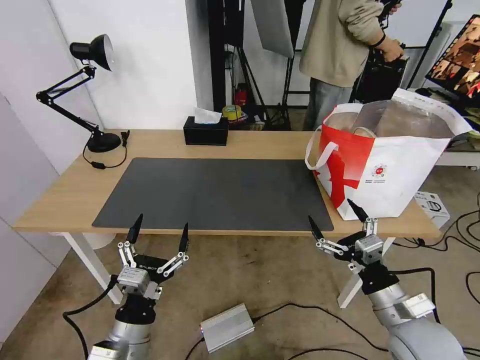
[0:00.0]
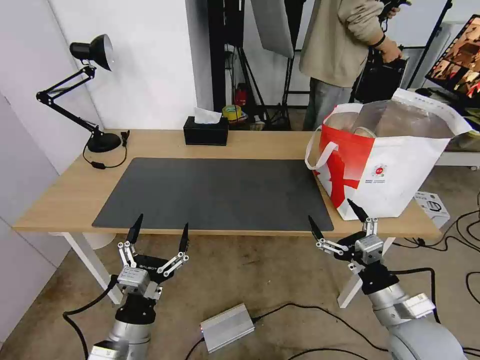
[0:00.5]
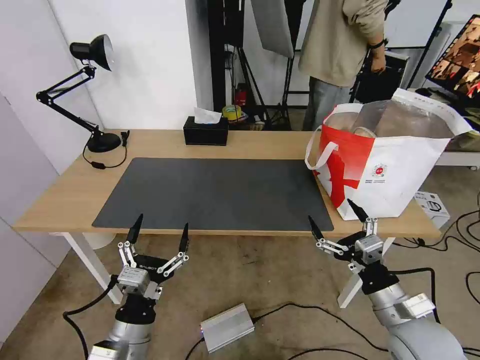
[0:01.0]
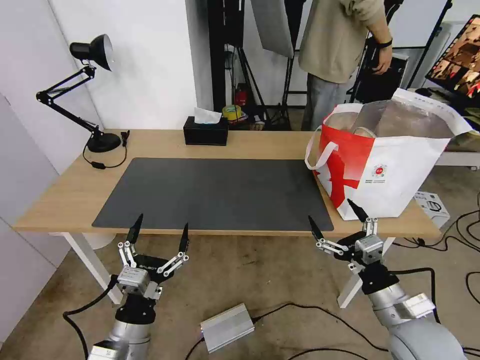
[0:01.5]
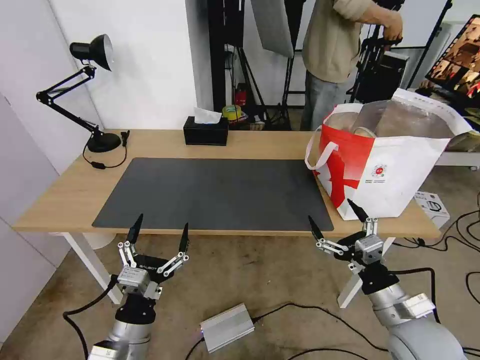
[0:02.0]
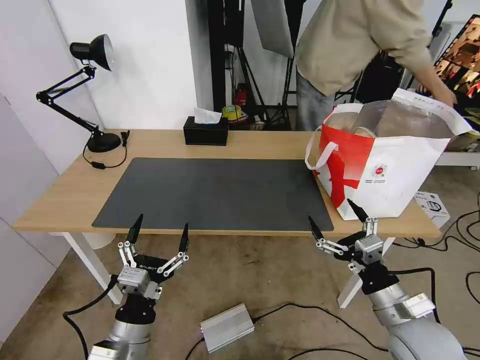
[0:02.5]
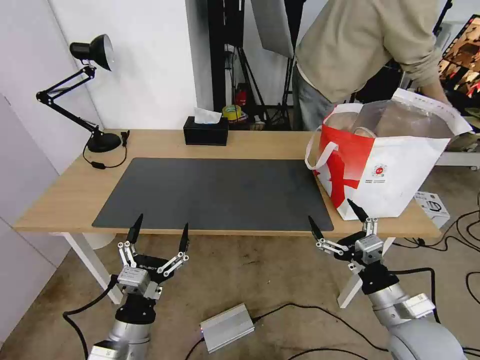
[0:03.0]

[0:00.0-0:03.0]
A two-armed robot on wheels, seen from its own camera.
Task of the whole recording: Pick up the trash from the table and place it into the takeout bag.
0:00.0 to 0:03.0: The two grippers keep their place.

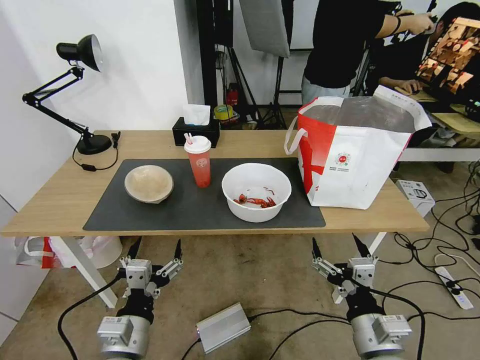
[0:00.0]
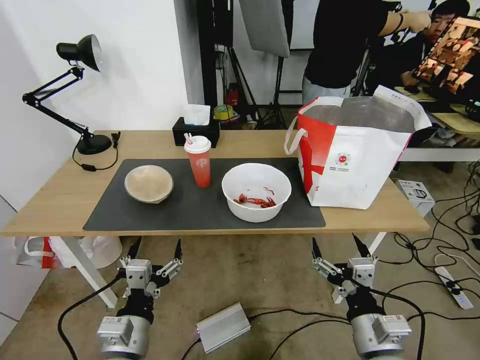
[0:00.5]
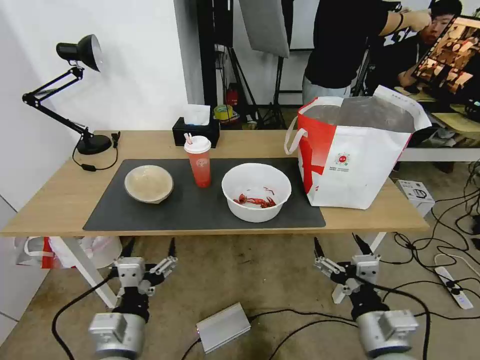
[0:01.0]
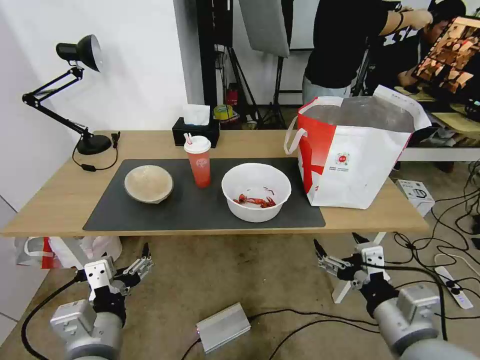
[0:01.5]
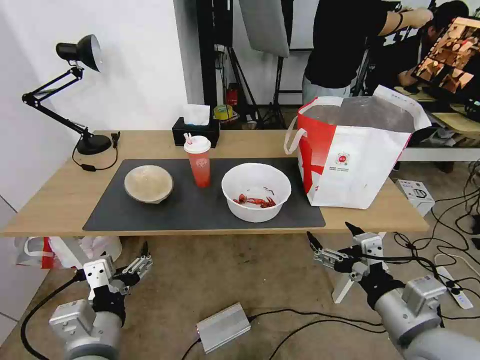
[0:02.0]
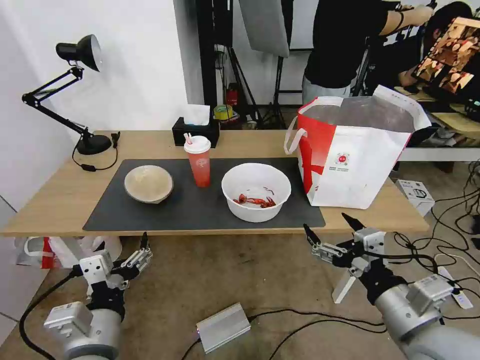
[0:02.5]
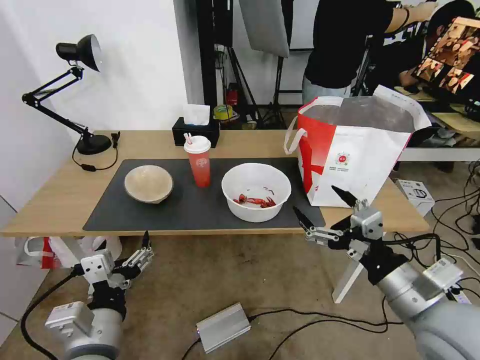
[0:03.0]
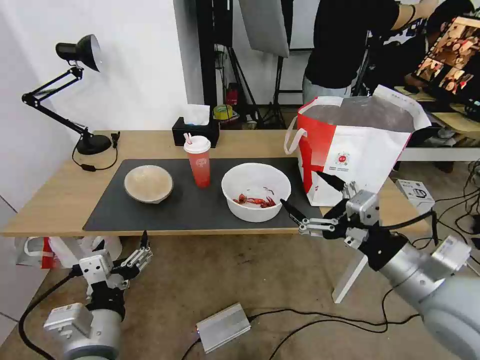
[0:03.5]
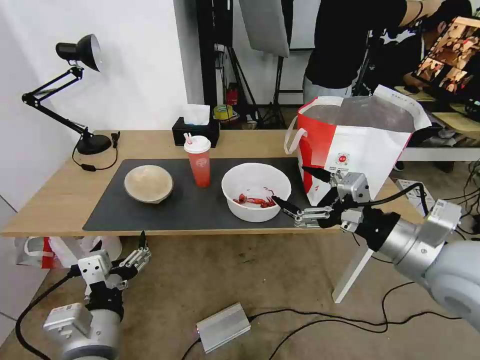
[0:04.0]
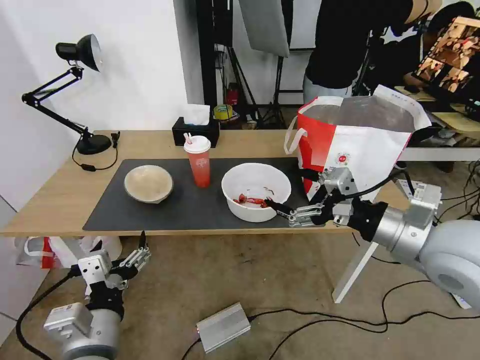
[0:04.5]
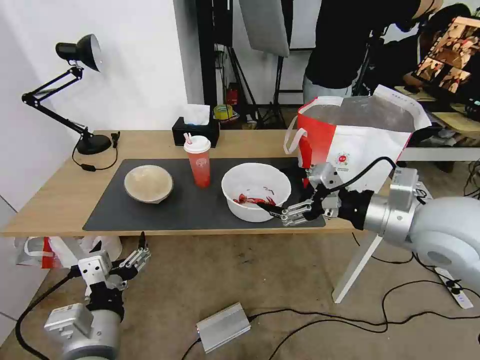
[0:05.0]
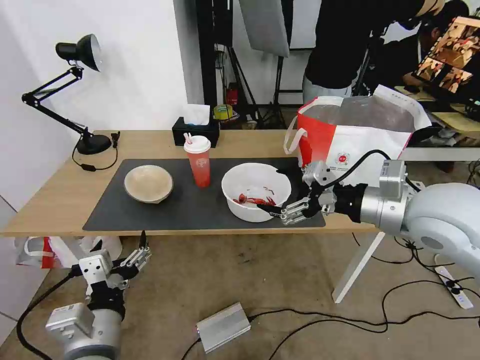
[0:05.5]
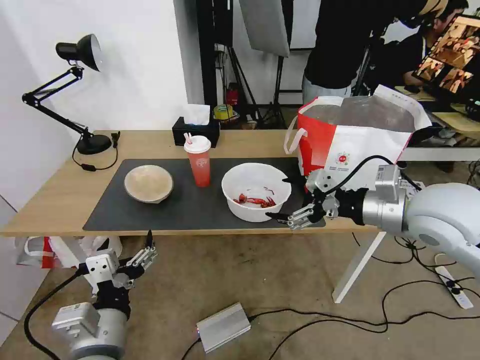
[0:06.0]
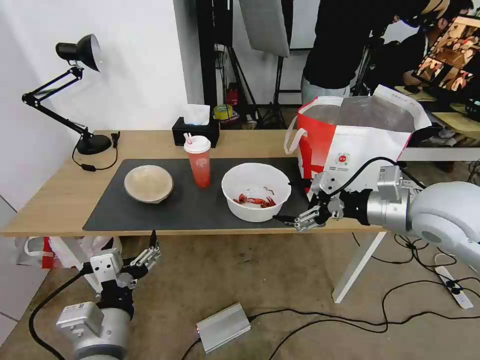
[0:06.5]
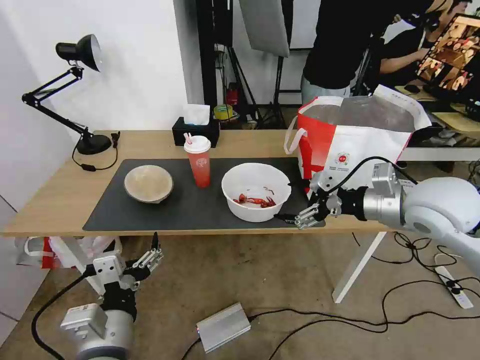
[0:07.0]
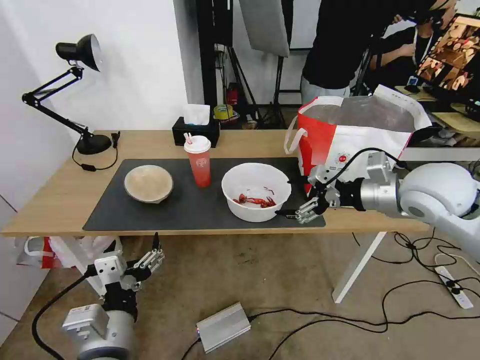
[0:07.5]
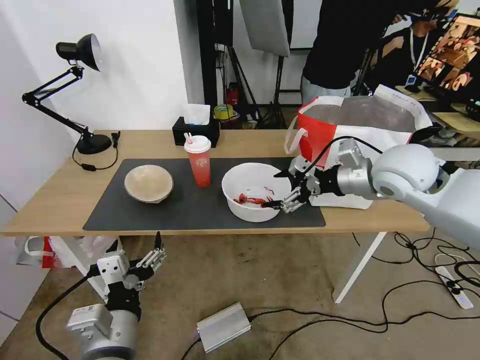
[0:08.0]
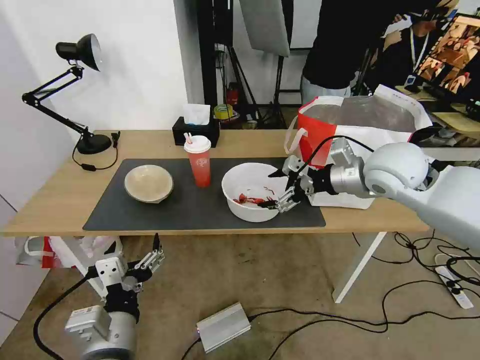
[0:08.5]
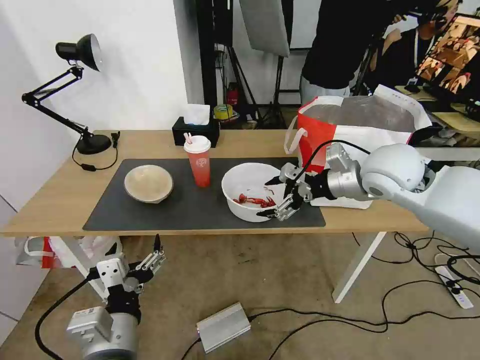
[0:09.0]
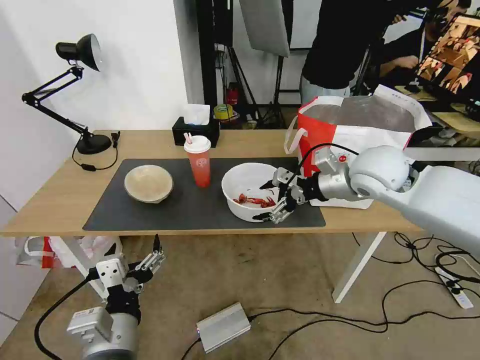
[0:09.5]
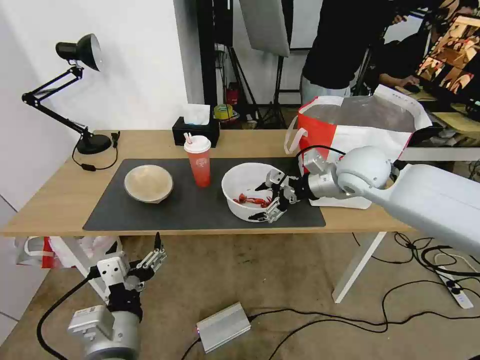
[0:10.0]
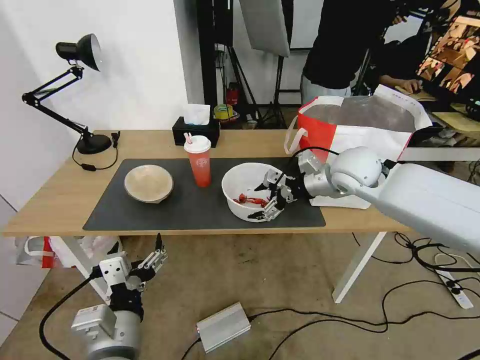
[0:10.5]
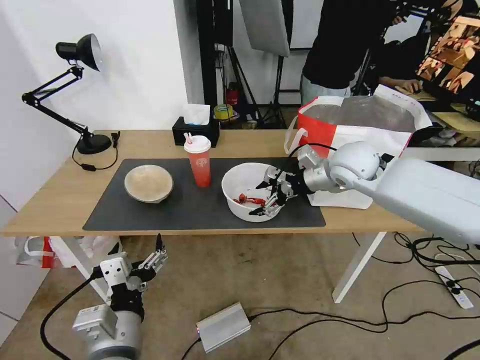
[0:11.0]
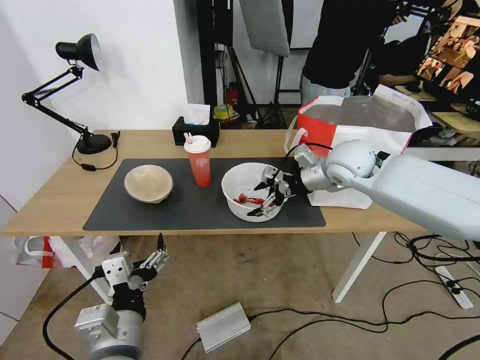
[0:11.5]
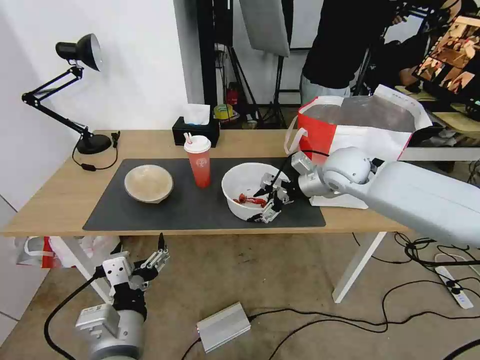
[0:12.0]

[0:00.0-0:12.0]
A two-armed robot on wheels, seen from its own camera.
Task of the whole recording: Pick up the trash from the table and place it into the takeout bag.
0:02.0 to 0:04.0: The right gripper heads upward and forward, covering roughly 10 cm.
0:04.0 to 0:06.0: The right gripper shifts roughly 10 cm forward.
0:06.0 to 0:08.0: The right gripper moves forward, roughly 10 cm.
0:08.0 to 0:10.0: The right gripper changes place by approximately 5 cm.
0:10.0 to 0:12.0: The grippers make only small movements.

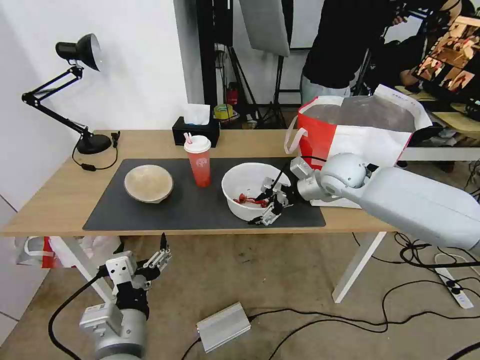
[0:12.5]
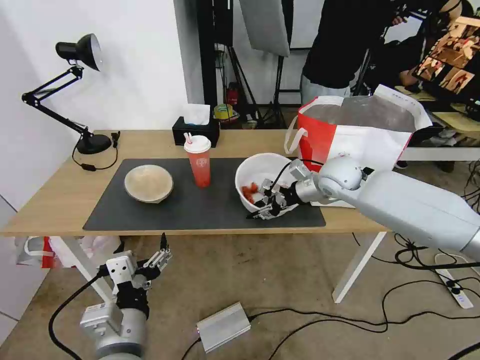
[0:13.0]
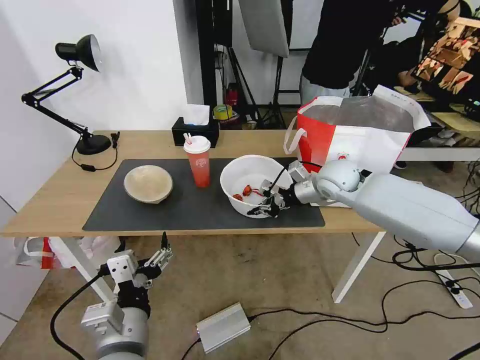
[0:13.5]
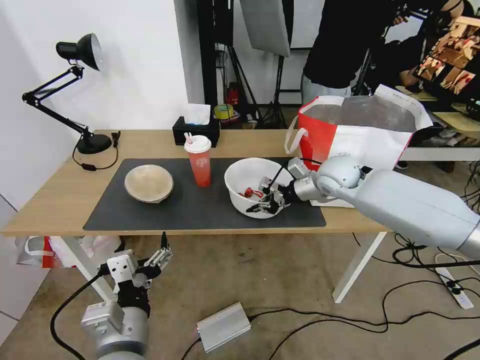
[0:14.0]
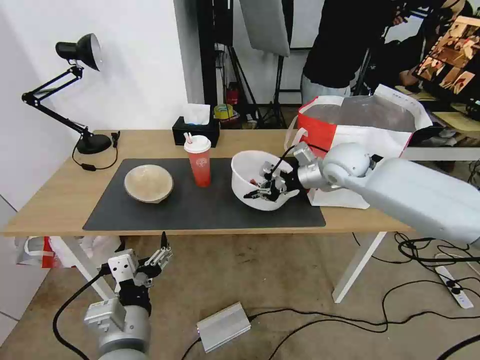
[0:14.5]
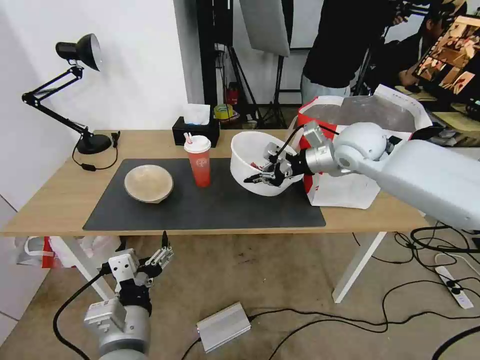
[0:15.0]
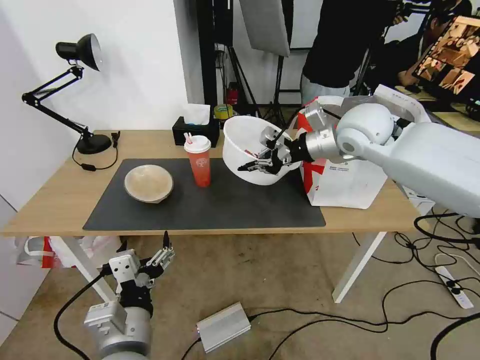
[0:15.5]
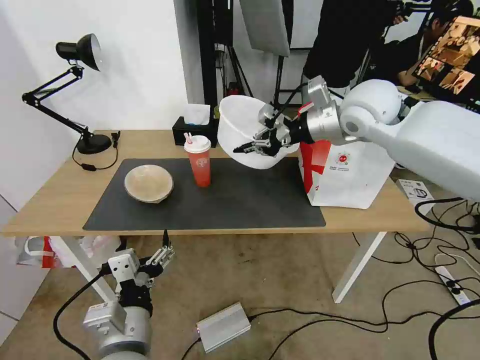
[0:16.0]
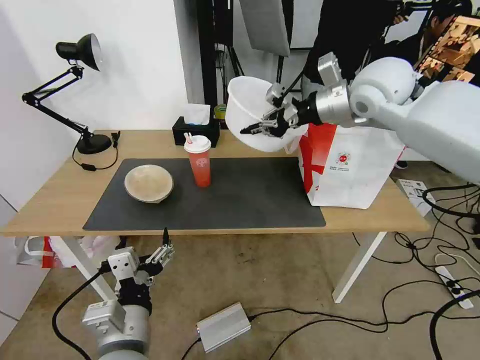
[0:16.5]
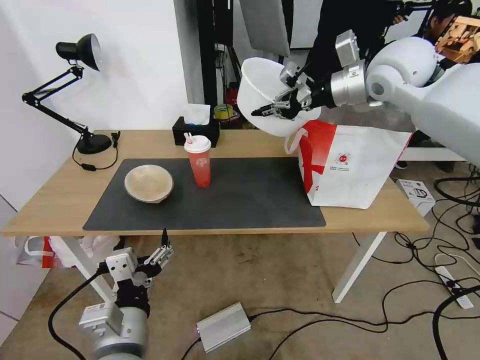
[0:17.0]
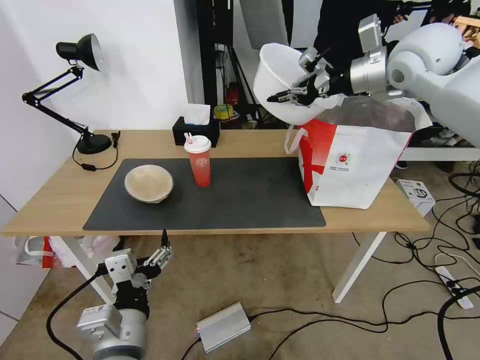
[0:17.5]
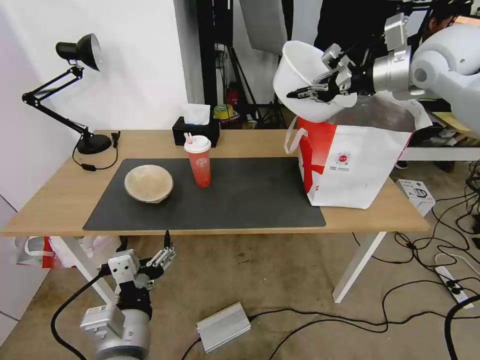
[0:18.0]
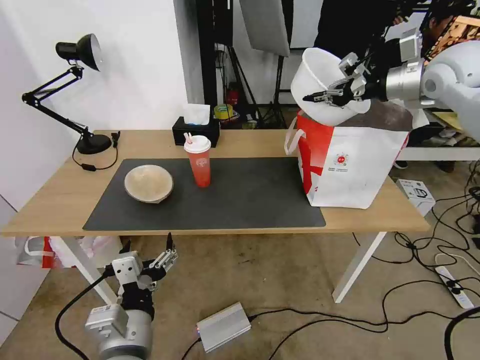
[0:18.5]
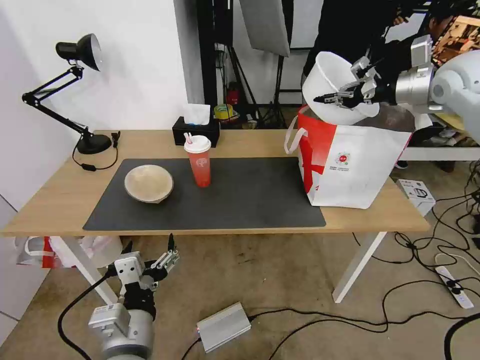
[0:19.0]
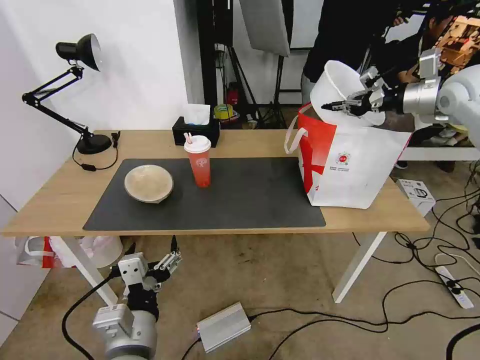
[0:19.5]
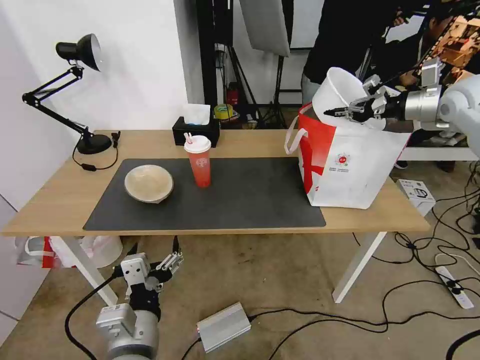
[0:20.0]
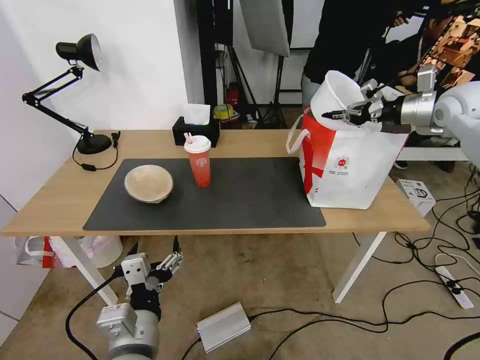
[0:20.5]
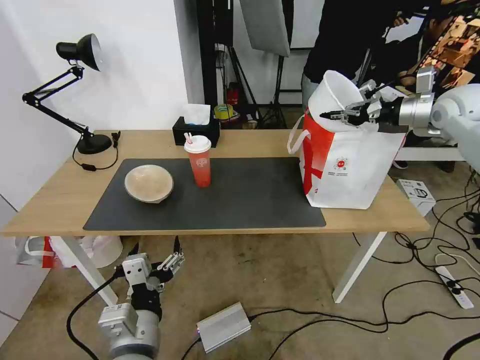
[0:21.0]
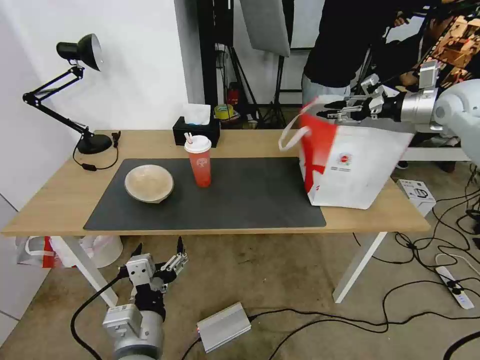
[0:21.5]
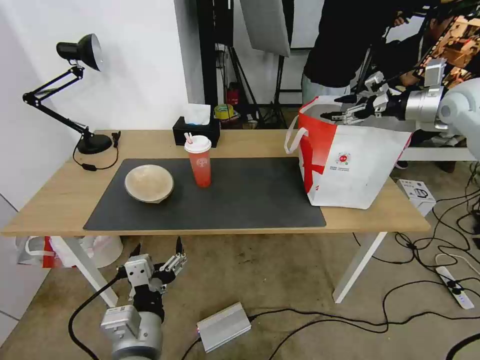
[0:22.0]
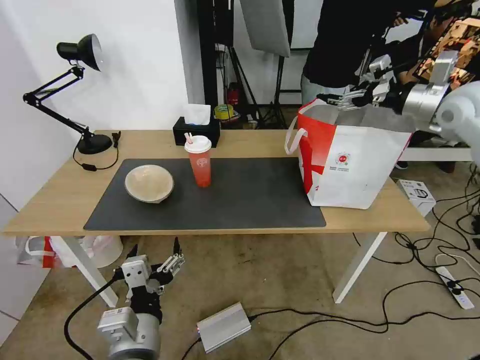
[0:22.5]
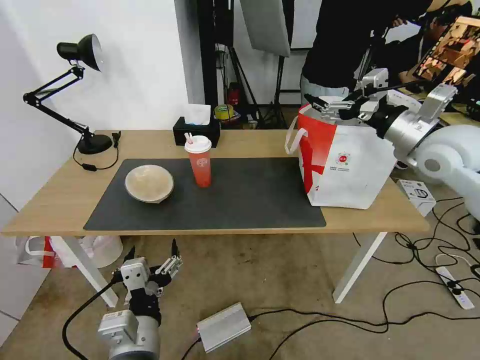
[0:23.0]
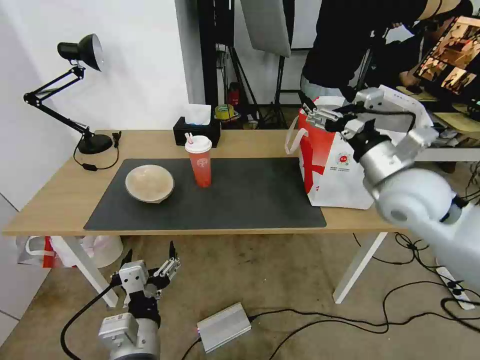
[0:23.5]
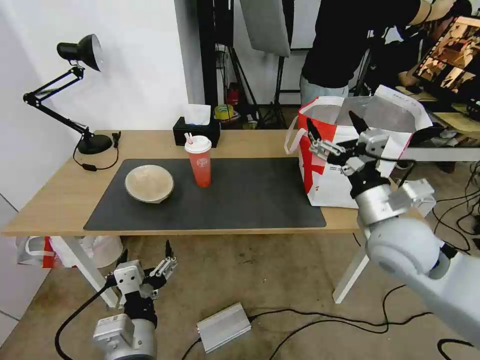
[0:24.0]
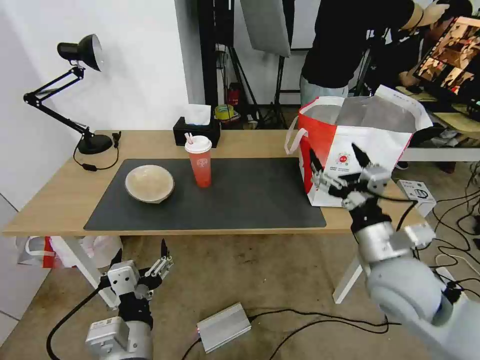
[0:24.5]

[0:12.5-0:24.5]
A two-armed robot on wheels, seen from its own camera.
Task of the whole recording: Pick up the trash from the table and place it into the takeout bag.
0:12.5 to 0:14.5: The right gripper closes up.
0:14.5 to 0:16.5: The right gripper heads upward, covering approximately 15 cm.
0:16.5 to 0:18.5: The right gripper goes some 15 cm to the right.
0:18.5 to 0:20.5: The right gripper is displaced to the right and downward by roughly 10 cm.
0:20.5 to 0:22.5: The right gripper shifts by some 5 cm, and opens.
0:22.5 to 0:24.5: The right gripper goes approximately 35 cm backward, downward and to the left.
